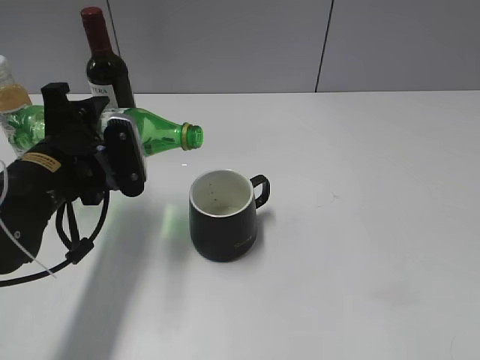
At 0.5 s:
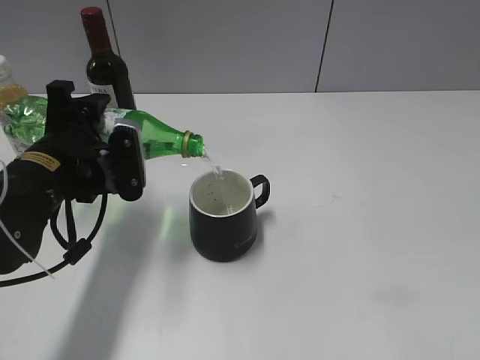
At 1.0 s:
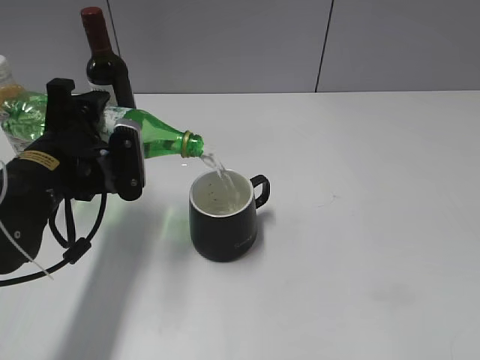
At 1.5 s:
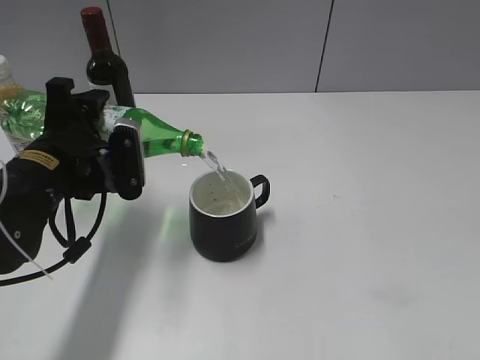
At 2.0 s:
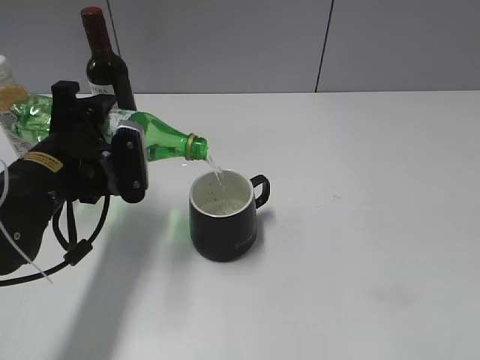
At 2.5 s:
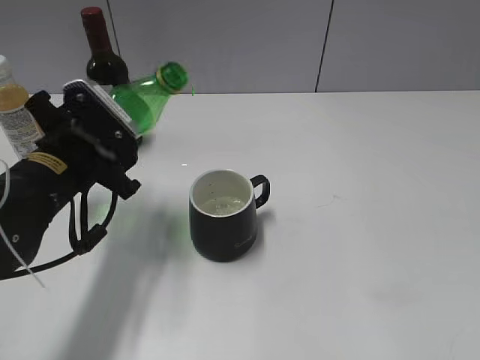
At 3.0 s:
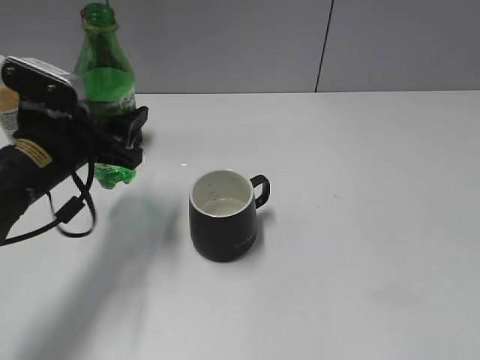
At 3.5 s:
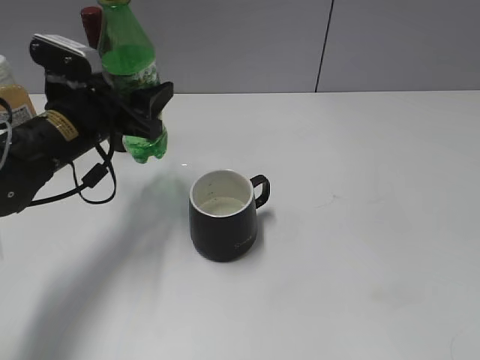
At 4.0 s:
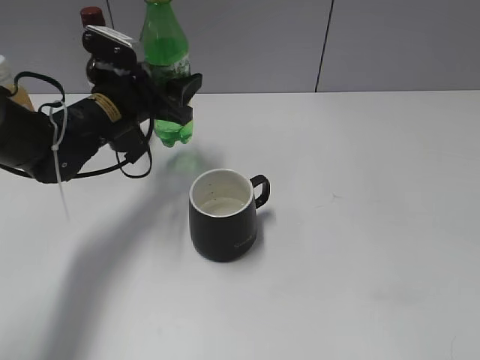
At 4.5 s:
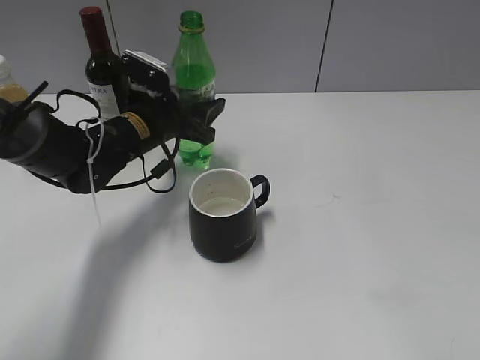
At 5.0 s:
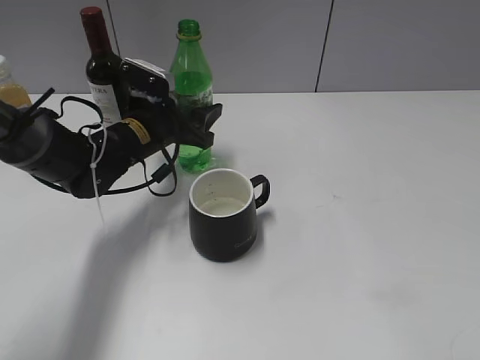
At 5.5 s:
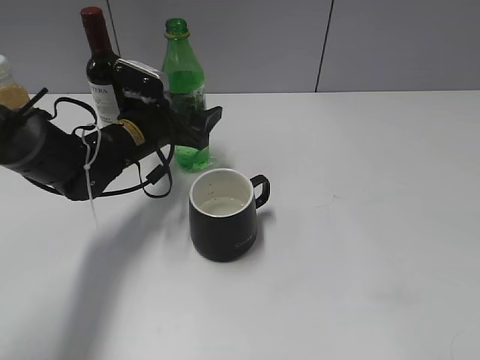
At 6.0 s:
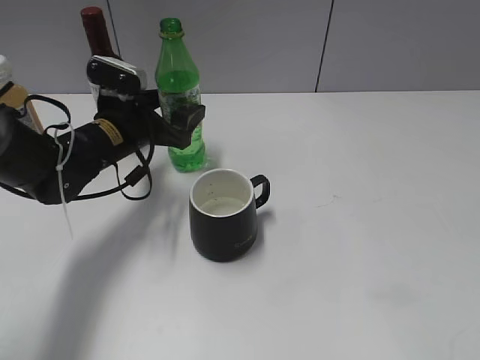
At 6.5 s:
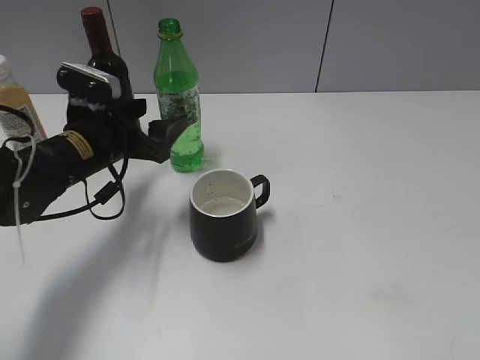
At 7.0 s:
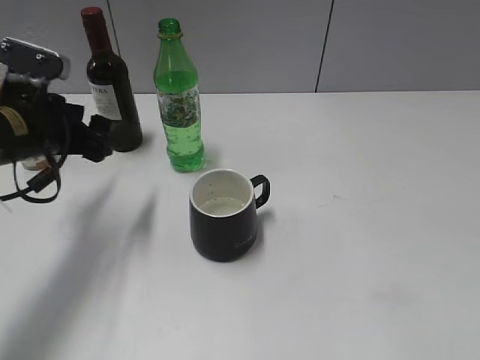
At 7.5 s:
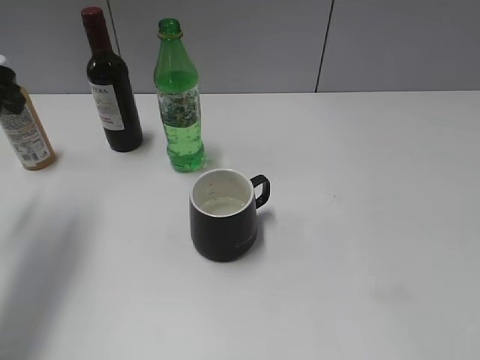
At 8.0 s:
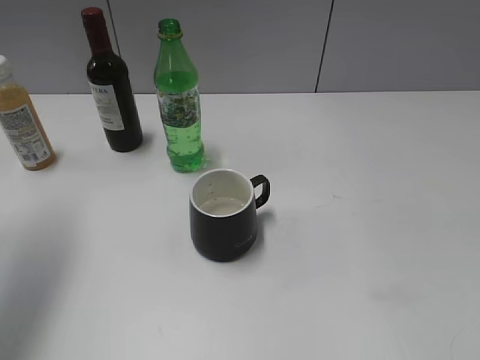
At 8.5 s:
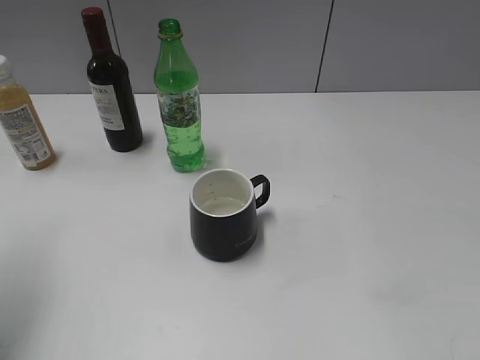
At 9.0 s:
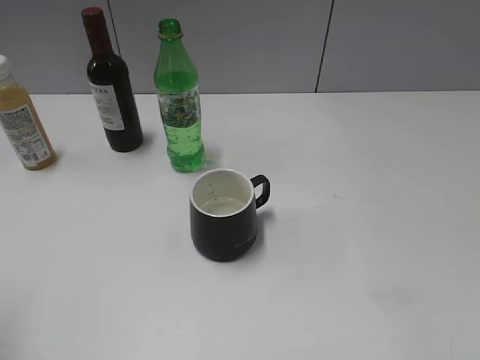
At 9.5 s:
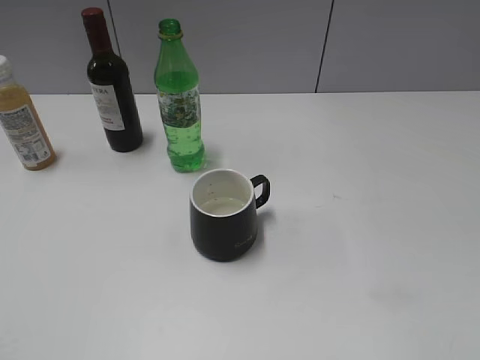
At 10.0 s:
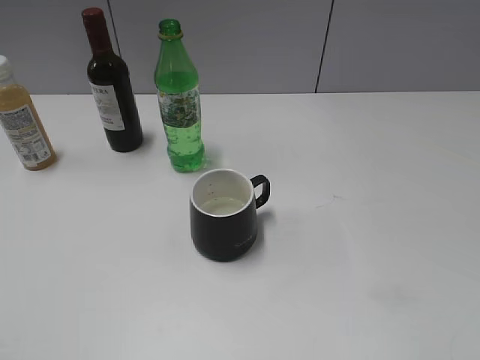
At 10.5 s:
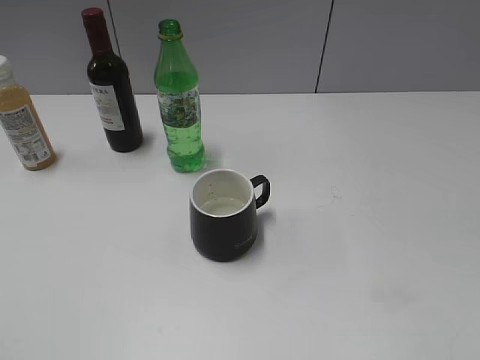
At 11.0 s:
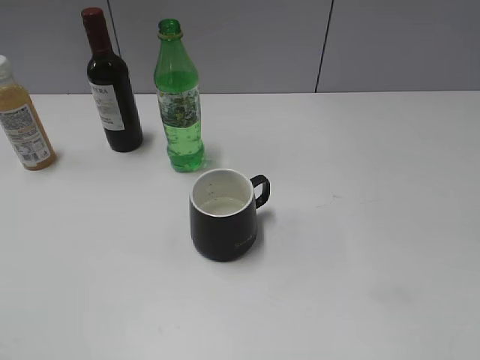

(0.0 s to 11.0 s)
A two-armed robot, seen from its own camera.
Step, 0.0 s - 2.0 s: Pour the sprite from bottle to cup with left gripper.
Step, 2.5 s - 6.0 s: Place the sprite bottle on the table with left gripper.
0.0 s - 2.0 s: The grippers make only small movements.
2.0 s - 3.5 s: The left gripper shifts roughly 5 cm forward.
3.5 s - 5.5 s: The left gripper heads forward and downward, covering roughly 10 cm, and opens.
5.5 s - 7.5 s: The left gripper travels upward, to the left and backward by about 25 cm.
7.5 s - 9.0 s: The left gripper moves backward, about 15 cm.

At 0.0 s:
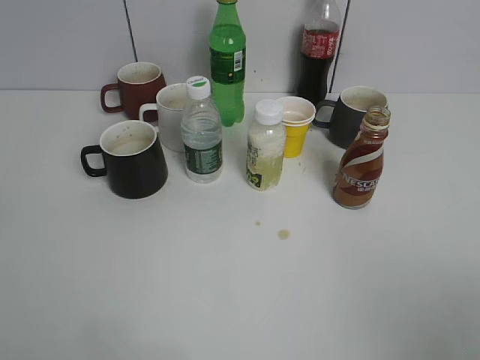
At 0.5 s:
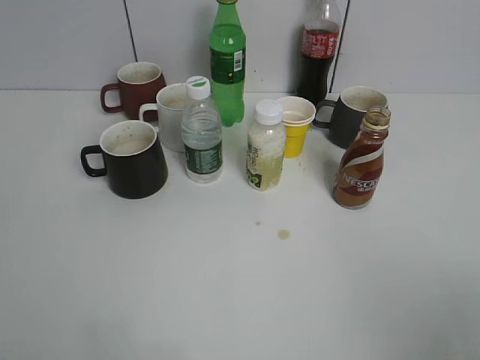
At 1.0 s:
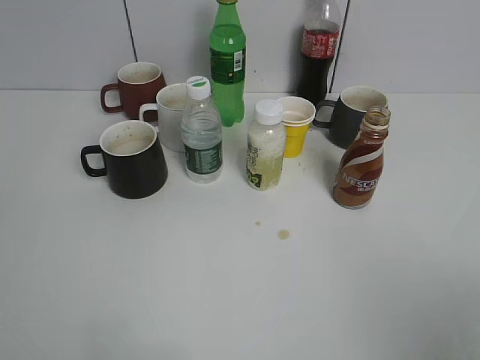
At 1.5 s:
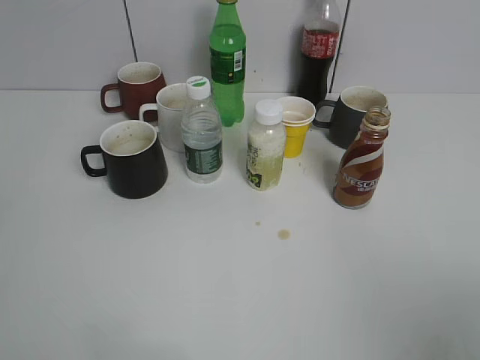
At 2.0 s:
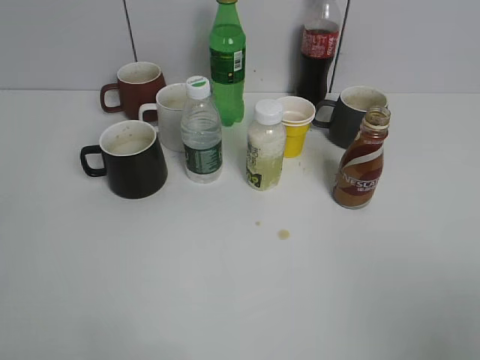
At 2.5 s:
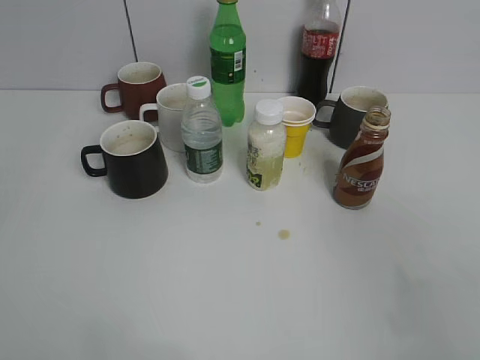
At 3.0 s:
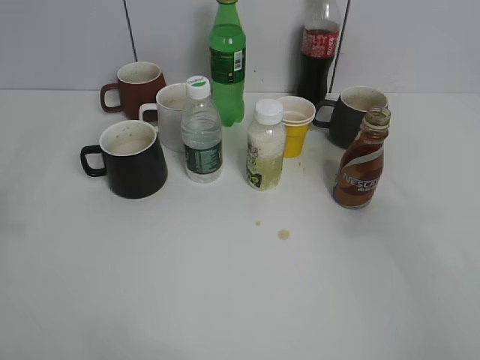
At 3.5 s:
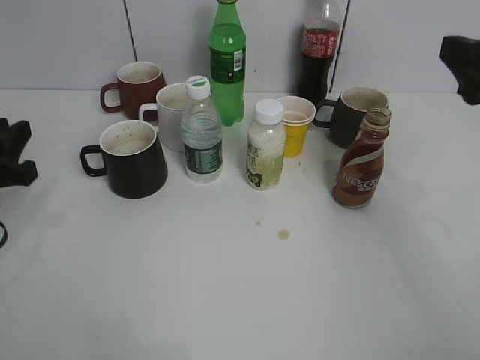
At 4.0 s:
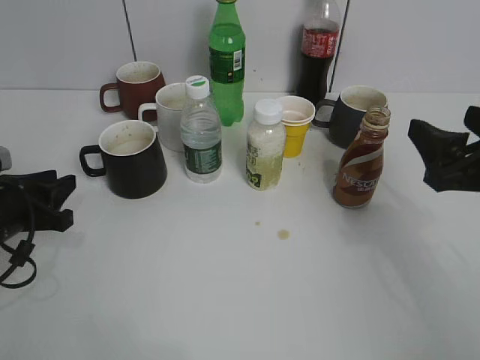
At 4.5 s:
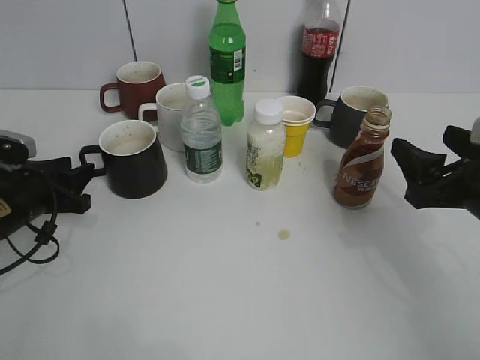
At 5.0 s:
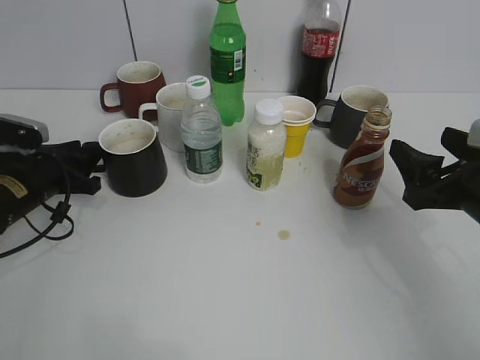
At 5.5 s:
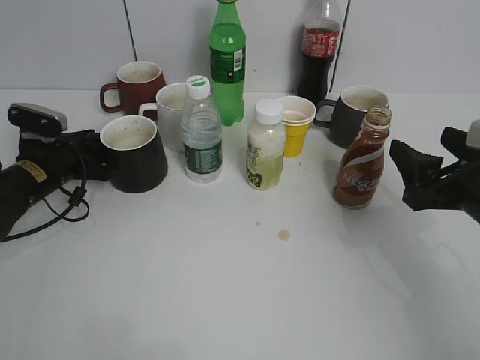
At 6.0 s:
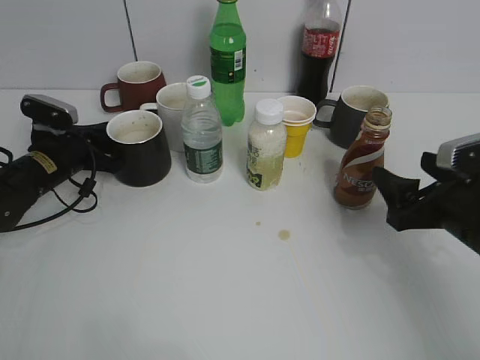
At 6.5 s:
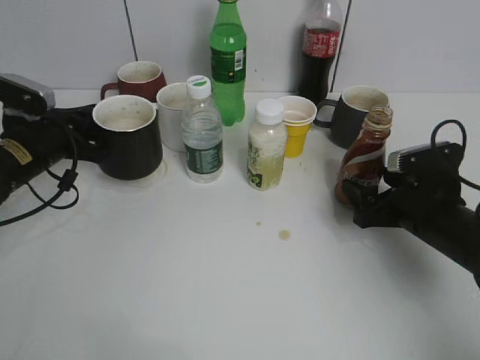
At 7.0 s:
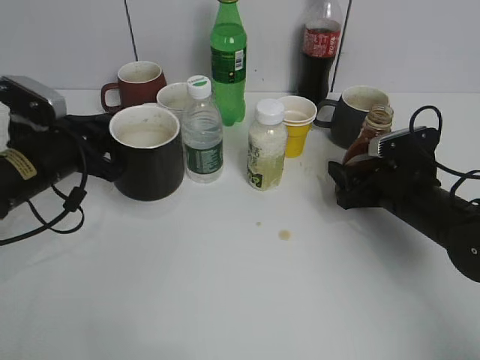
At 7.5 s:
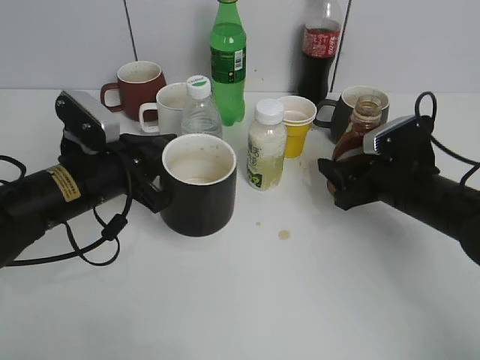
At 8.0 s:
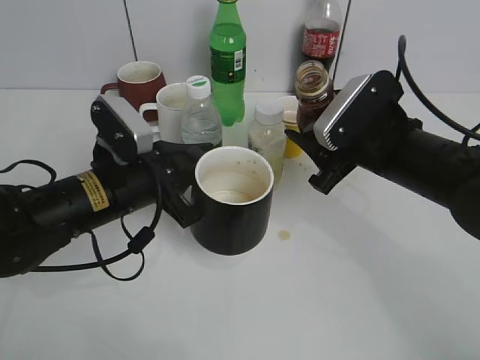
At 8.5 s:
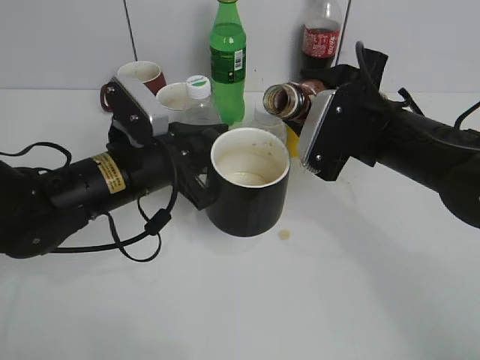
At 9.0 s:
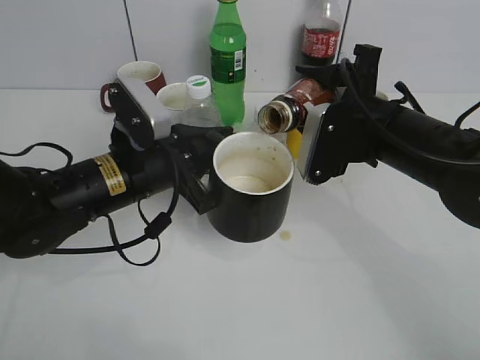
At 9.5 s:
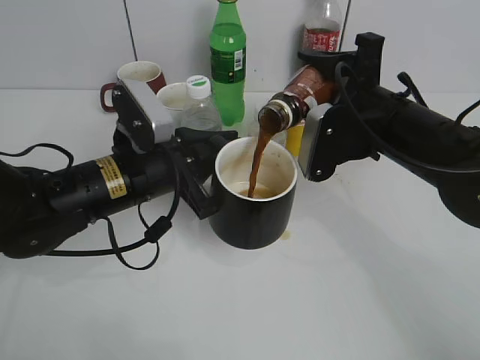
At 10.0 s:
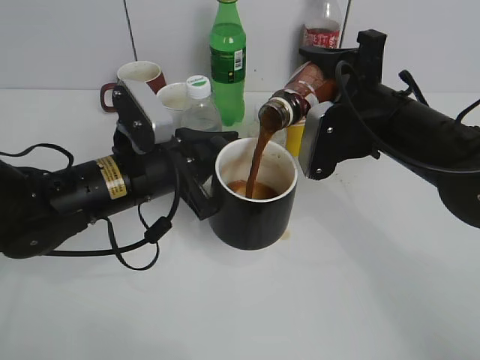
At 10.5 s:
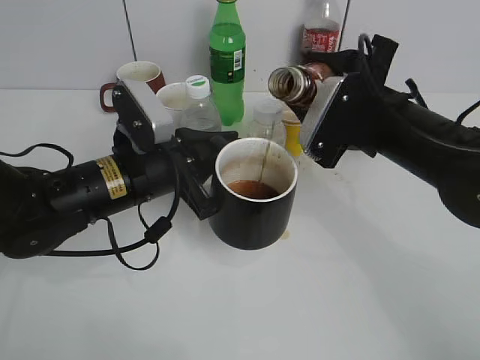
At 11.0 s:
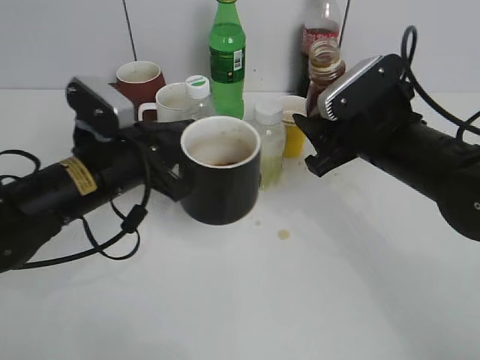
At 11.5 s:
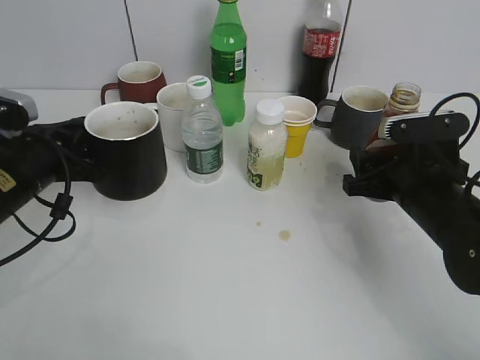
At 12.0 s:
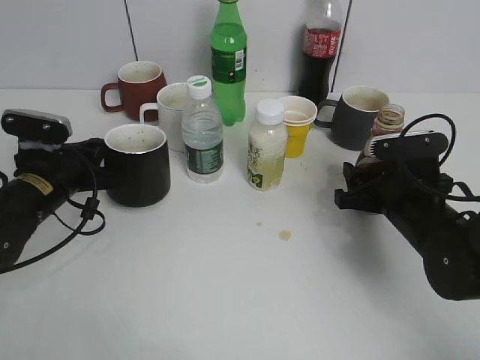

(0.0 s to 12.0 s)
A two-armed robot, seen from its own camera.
Step, 2.0 s - 5.5 s: Grasp the black cup with left gripper.
Step, 6.5 s - 7.0 s: Lift the black cup with left gripper.
Step, 7.5 s - 10.5 s: Pour the coffee from bottle to cup with right gripper.
2.0 s - 4.0 s: The right gripper heads forward, covering roughly 20 cm; the left gripper heads forward and downward, covering approximately 30 cm.
4.0 s - 6.0 s: The right gripper goes some 5 cm downward, while the left gripper shifts about 15 cm forward, and closes up.
6.0 s - 8.0 s: The right gripper goes some 10 cm to the left and forward, reaches some 5 cm downward, then returns, and closes. Meanwhile the left gripper goes approximately 20 cm to the right, backward and upward.
10.0 s - 12.0 s: The right gripper travels downward and to the right by approximately 10 cm. Meanwhile the left gripper is displaced to the left and downward by approximately 15 cm.

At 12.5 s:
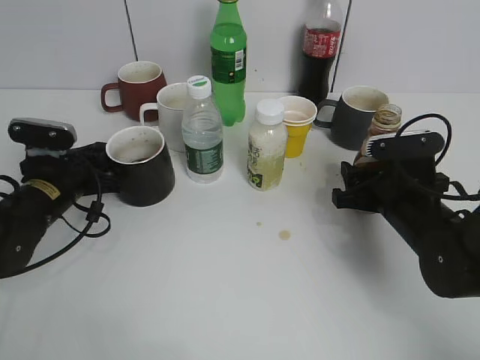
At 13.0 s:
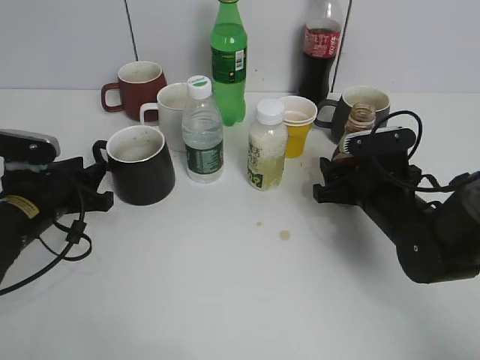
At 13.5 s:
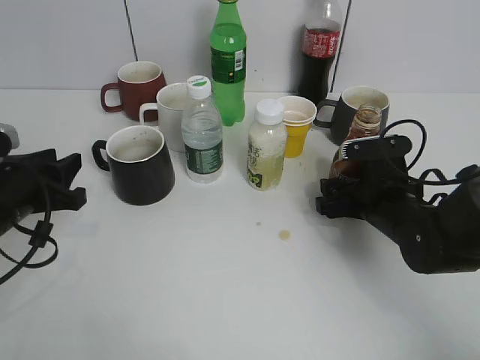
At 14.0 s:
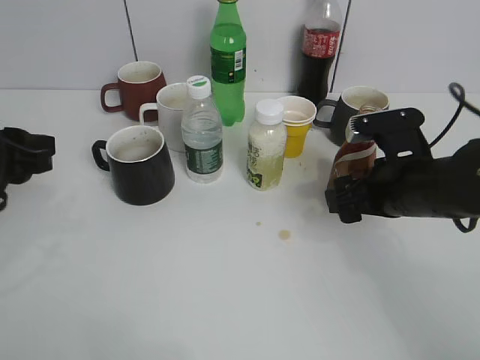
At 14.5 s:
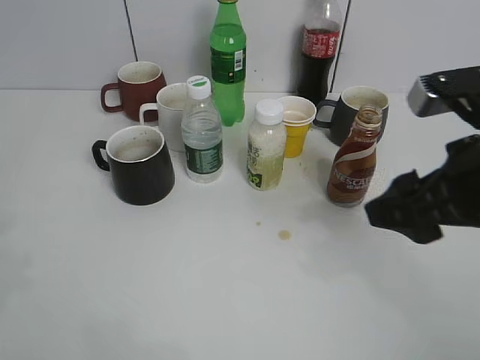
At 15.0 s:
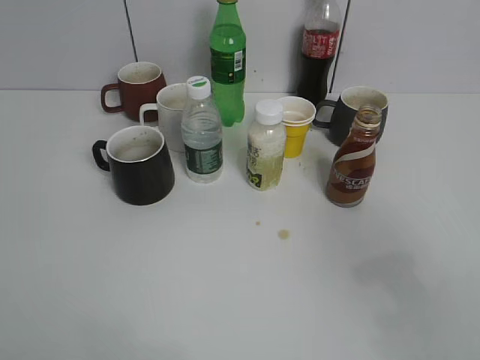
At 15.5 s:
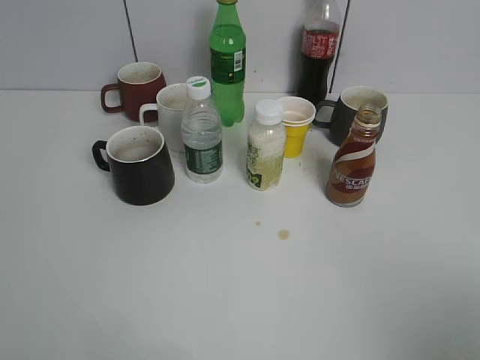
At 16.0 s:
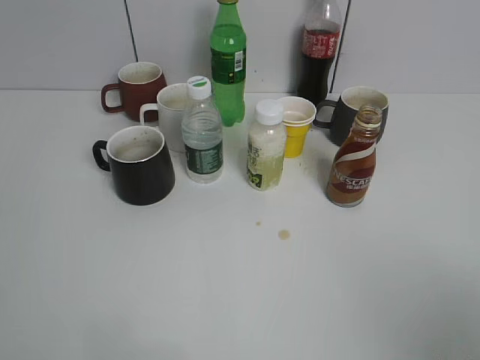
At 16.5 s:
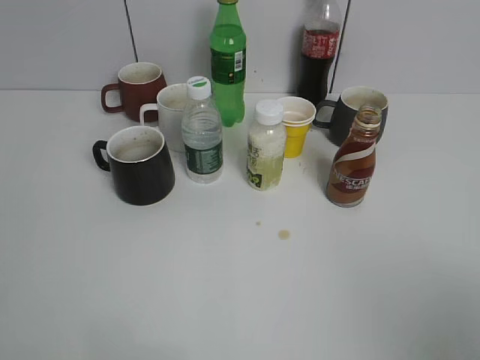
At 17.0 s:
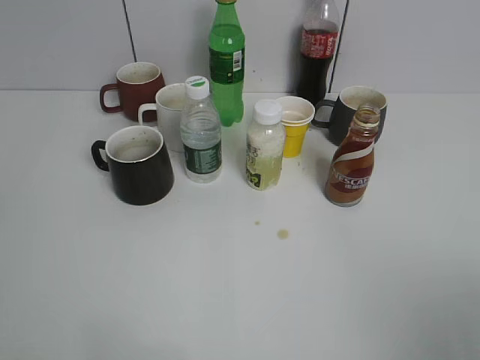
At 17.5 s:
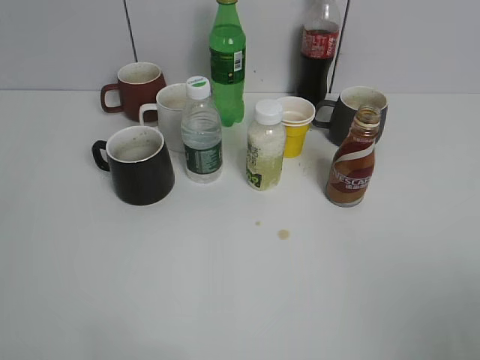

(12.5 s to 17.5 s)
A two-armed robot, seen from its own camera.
Step, 12.5 s - 14.0 s: Place the coffee bottle on the table with right gripper.
12.5 s - 15.0 s: The right gripper shifts roughly 25 cm upward and backward, and opens; the left gripper is displaced backward and upward by about 40 cm, and opens its fingers.
15.0 s - 17.5 s: The right gripper goes some 10 cm backward and to the right.
